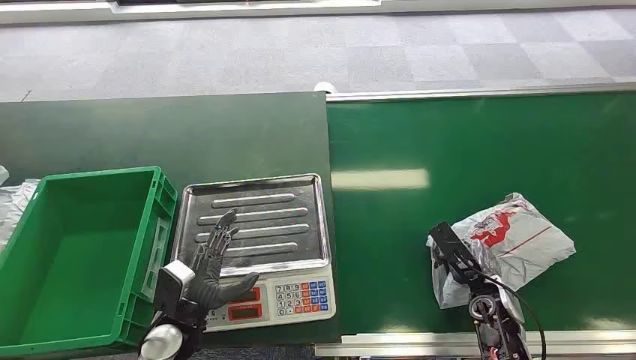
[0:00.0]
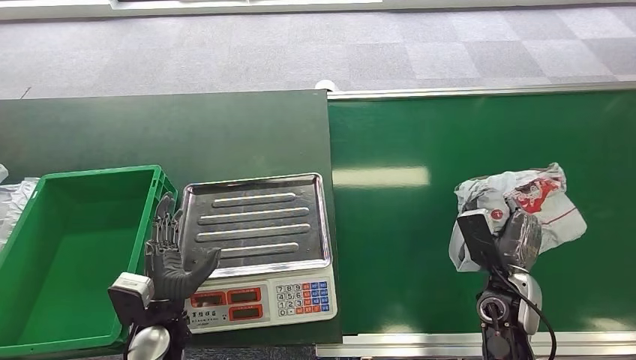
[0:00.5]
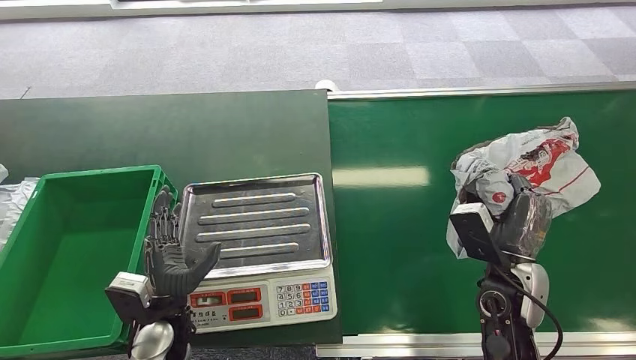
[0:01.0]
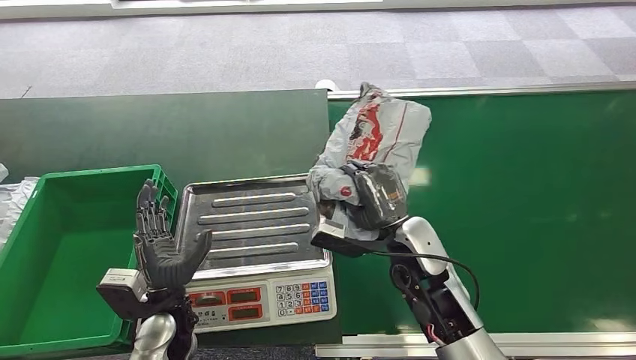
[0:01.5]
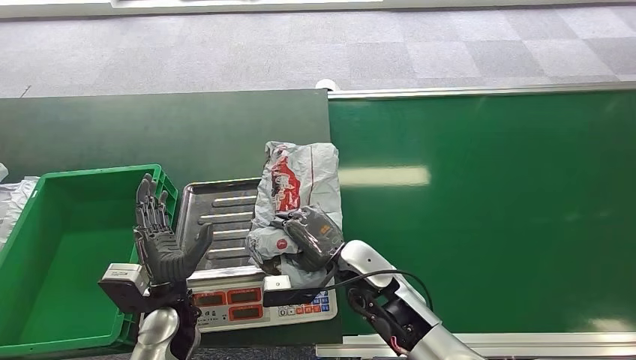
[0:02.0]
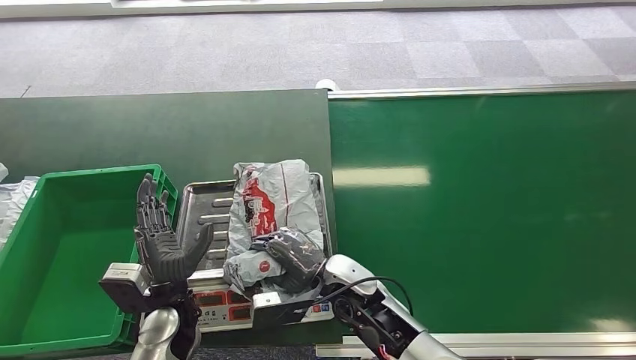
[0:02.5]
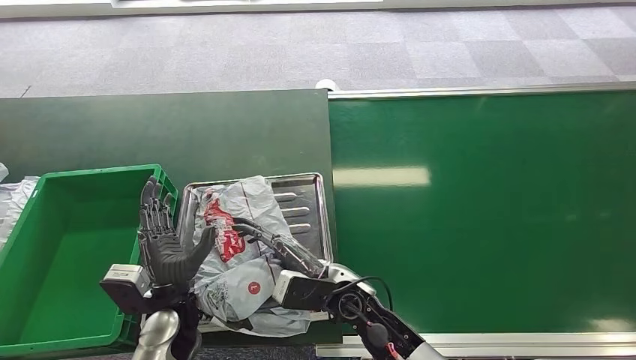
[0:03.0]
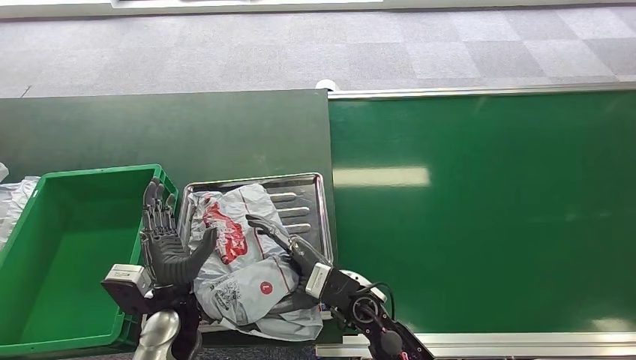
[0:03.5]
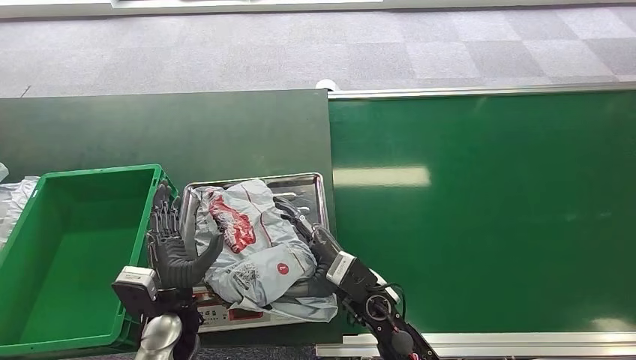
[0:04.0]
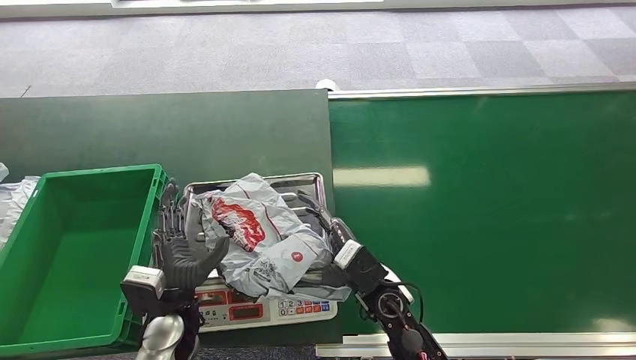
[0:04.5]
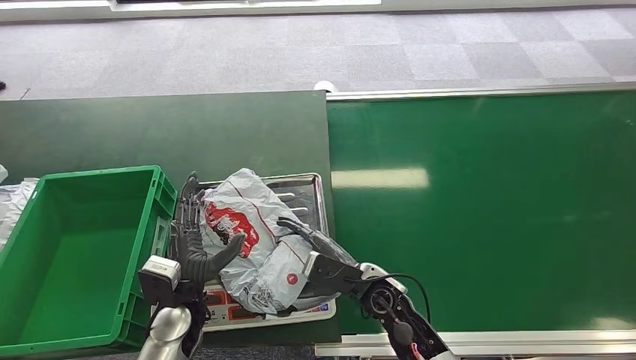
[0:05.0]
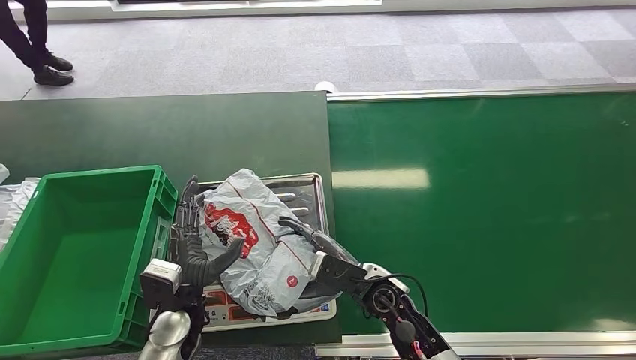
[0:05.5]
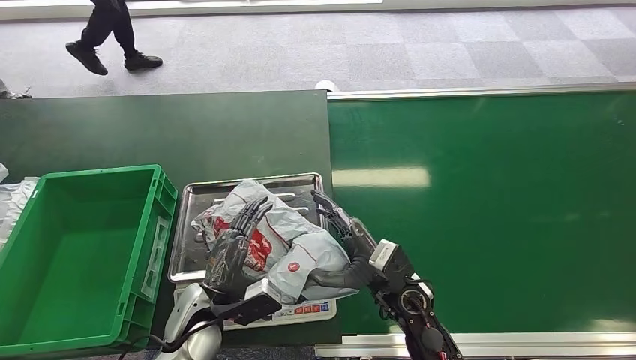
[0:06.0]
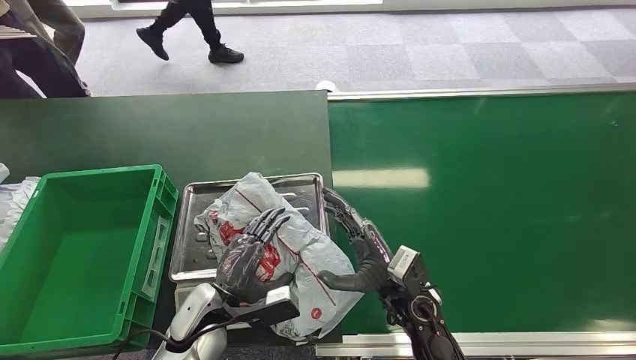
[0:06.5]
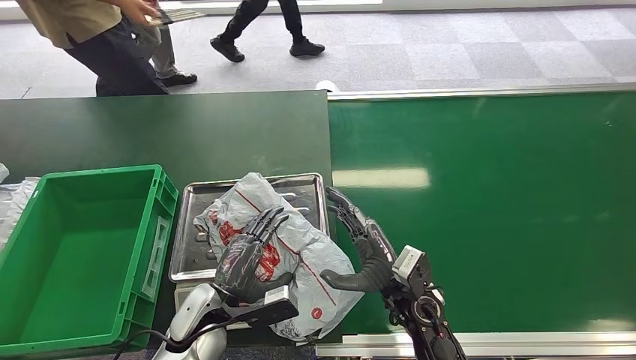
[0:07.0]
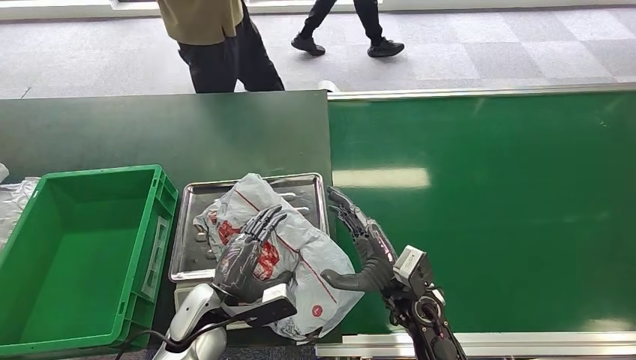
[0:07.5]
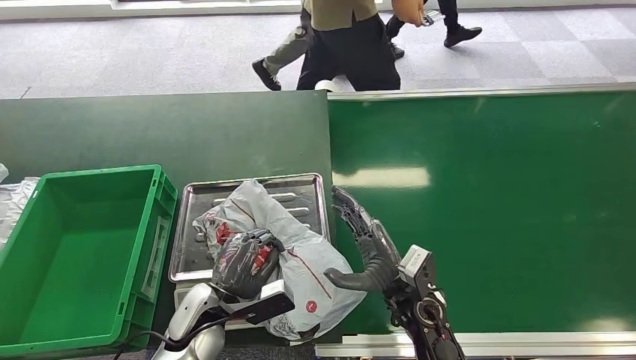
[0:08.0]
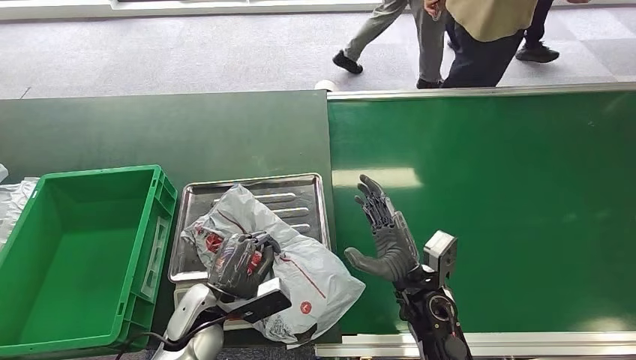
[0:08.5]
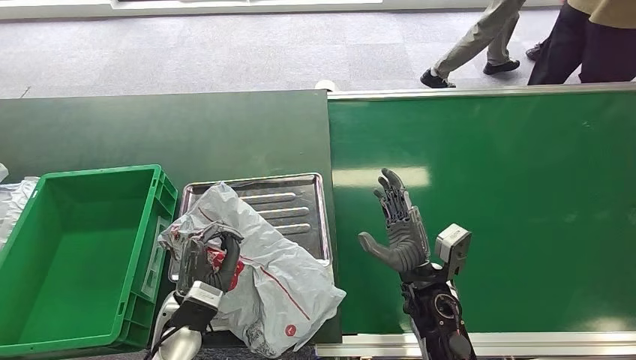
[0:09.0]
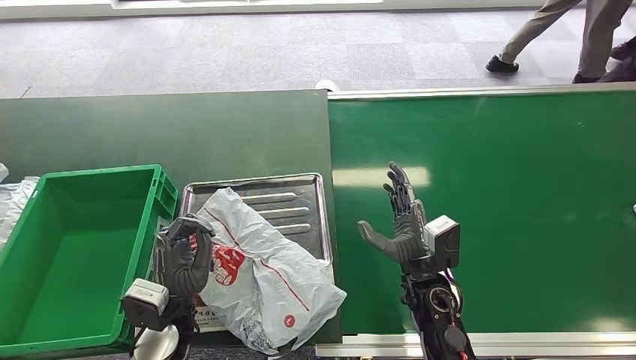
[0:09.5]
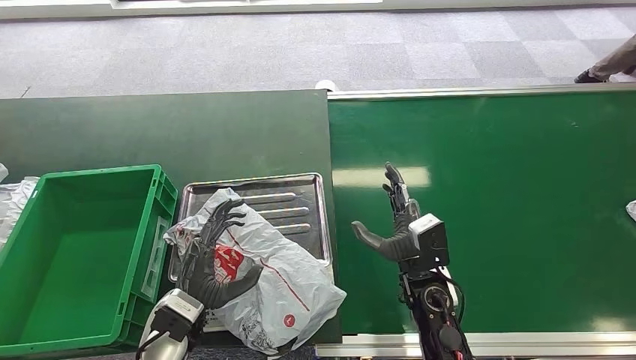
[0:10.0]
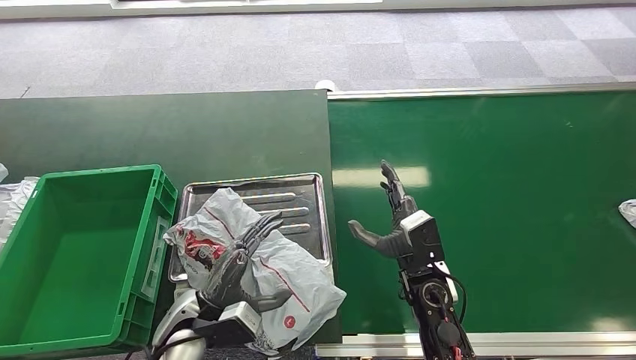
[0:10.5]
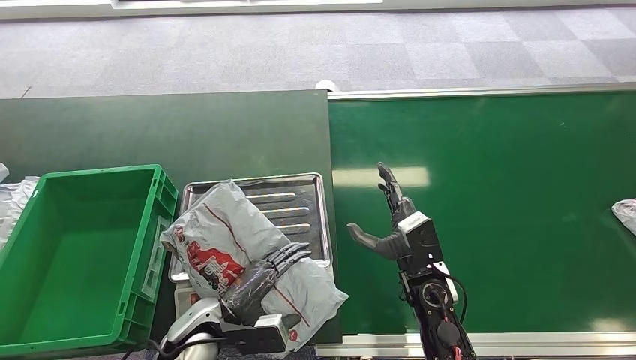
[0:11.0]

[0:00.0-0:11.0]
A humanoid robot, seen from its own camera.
Step, 0:00.0 to 0:01.0: Pick up the package from the conveyor belt.
Step, 0:02.0 to 0:03.0: Place the package onto the inbound machine.
0:02.0 to 0:03.5: The right hand changes place by roughly 5 cm.
0:03.5 to 0:05.5: The right hand goes about 5 cm to the right.

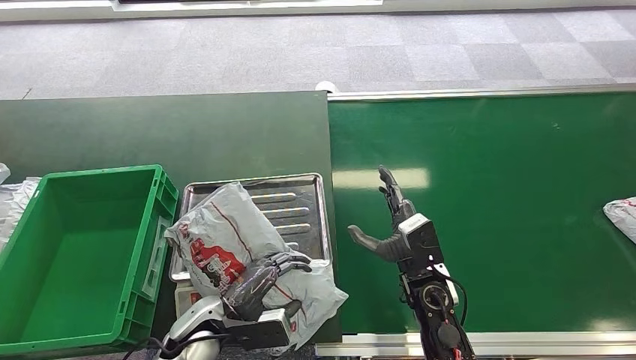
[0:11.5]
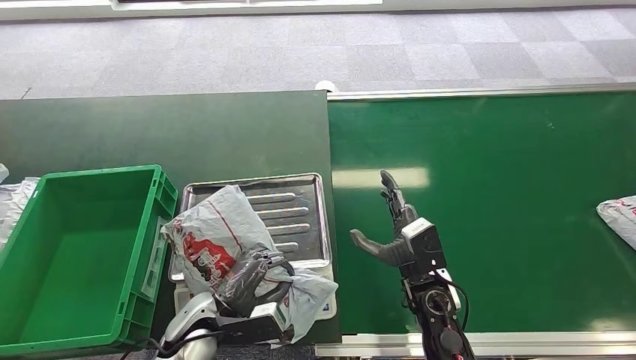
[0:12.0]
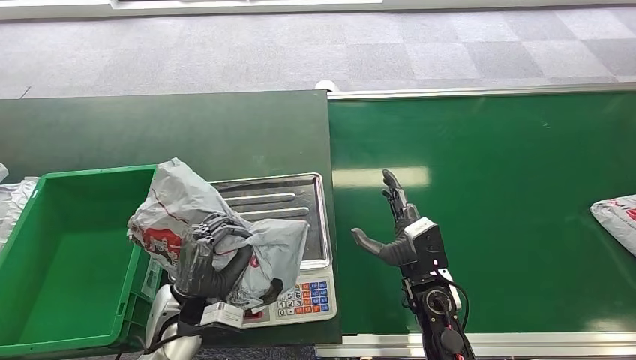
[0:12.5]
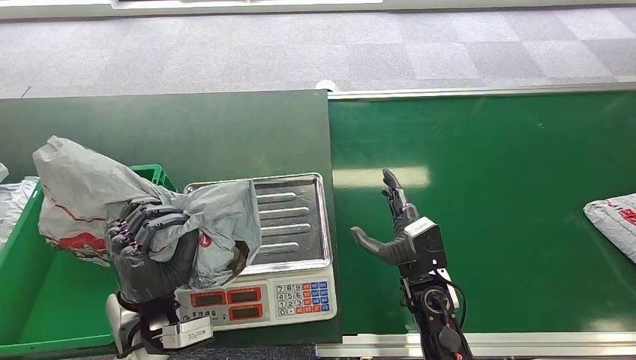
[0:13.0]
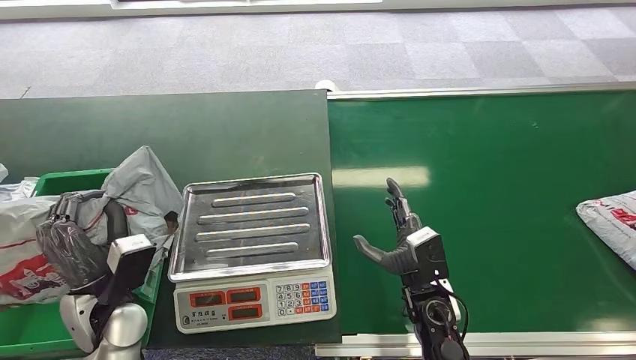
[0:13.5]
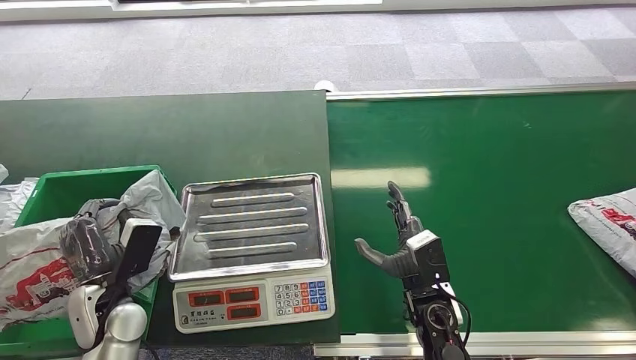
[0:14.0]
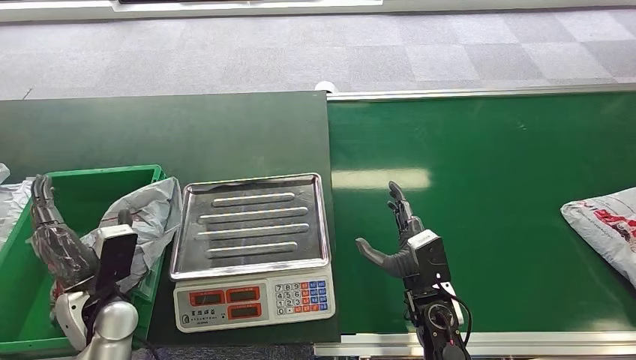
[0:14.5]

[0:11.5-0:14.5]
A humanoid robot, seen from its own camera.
Step, 0:12.0 to 0:13.0: Pick up the package from the inbound machine.
Step, 0:13.5 to 0:14.5: Place the package into the parcel locker.
0:11.5 to 0:13.0: The left hand travels upward by roughly 10 cm.
